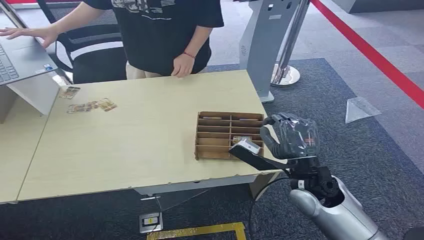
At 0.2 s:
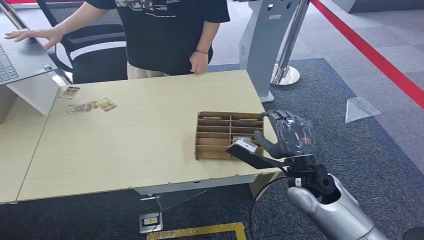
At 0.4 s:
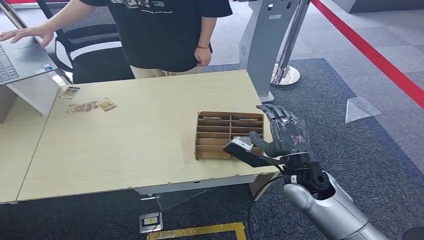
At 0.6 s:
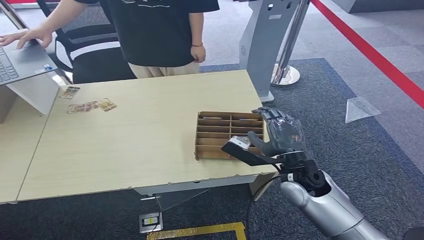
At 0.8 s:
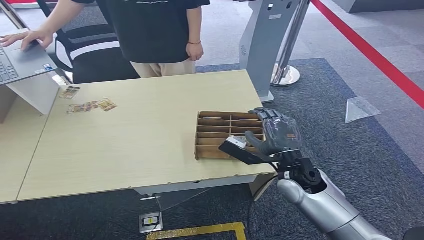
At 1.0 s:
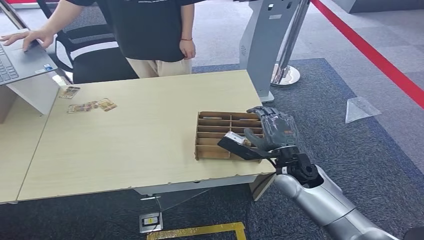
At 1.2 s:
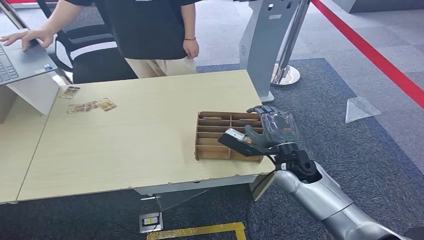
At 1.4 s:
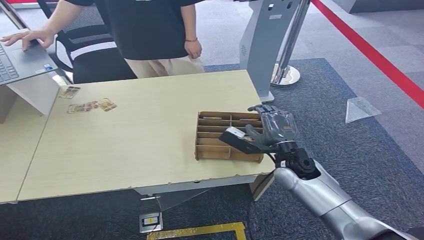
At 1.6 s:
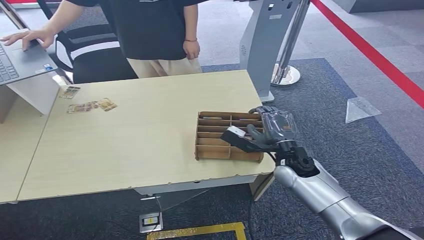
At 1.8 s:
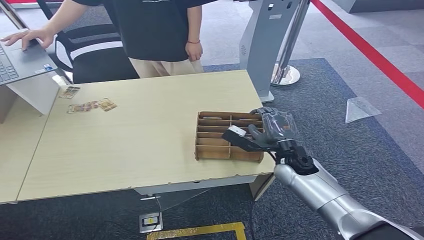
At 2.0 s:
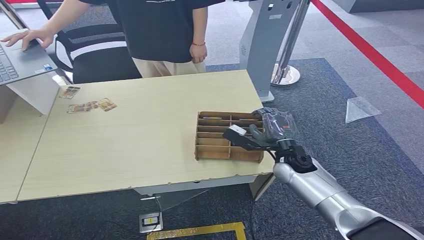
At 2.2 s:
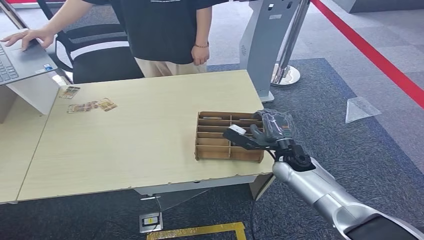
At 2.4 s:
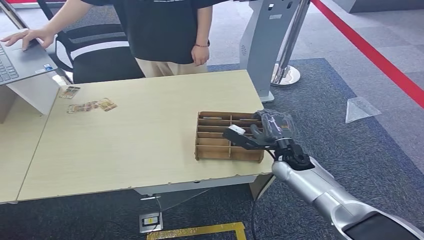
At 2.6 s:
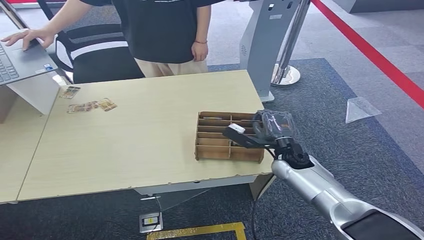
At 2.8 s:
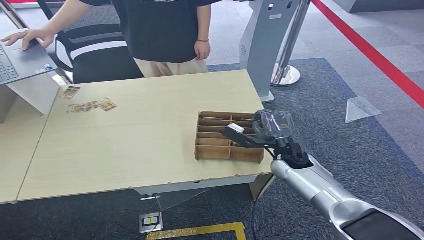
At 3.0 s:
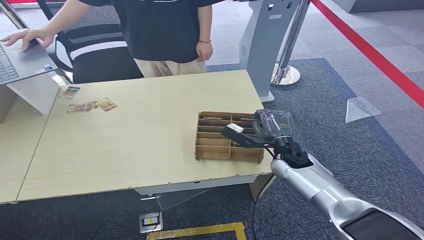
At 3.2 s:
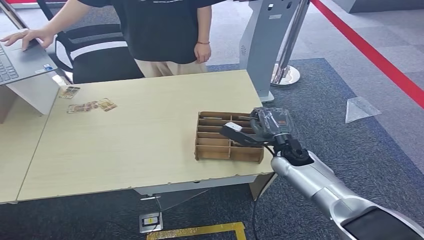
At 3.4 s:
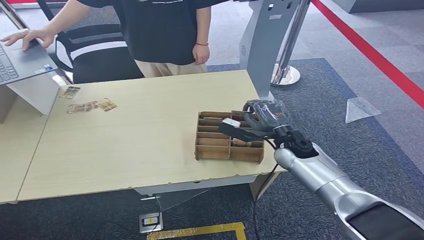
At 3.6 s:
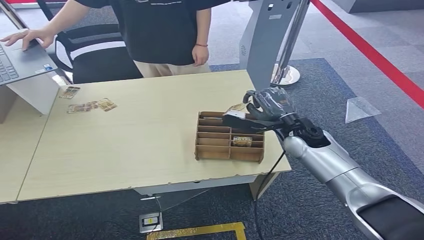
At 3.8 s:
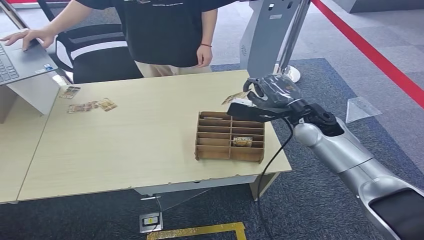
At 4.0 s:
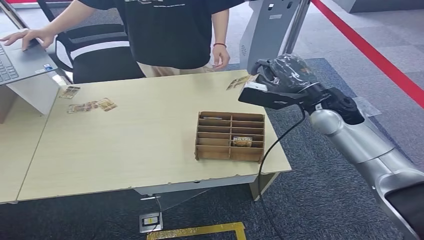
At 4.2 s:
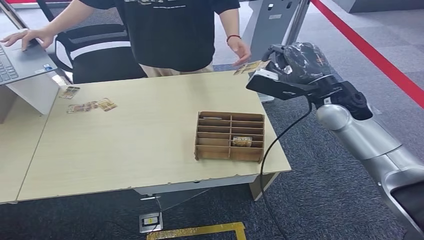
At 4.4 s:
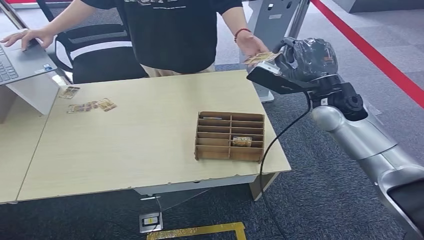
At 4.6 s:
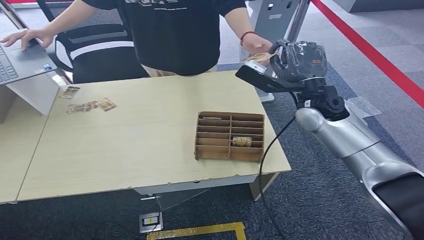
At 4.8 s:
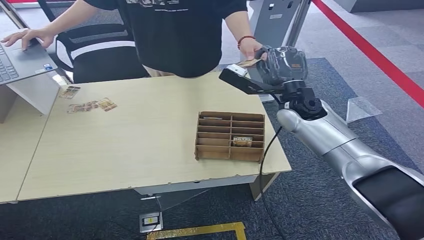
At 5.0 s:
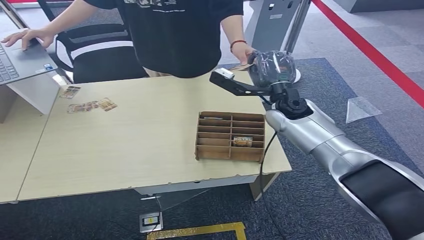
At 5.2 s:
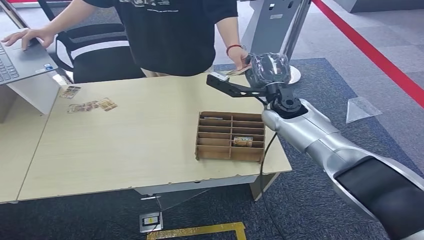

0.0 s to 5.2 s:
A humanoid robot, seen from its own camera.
Step, 0.0 to 4.0 s: Pick up the key card from the card box.
Step, 4.2 to 5.2 s: Hand the key card to the target.
1.8 to 3.4 s: The hands stay close to where they were, moving slightly.
3.4 to 5.2 s: The right hand is displaced upward and forward by roughly 15 cm.
